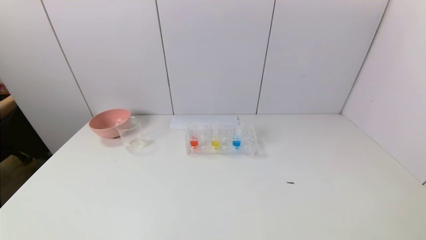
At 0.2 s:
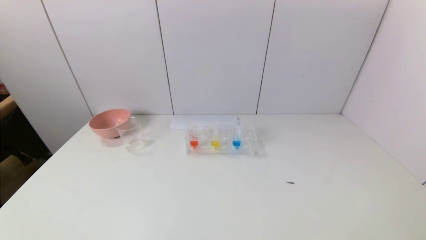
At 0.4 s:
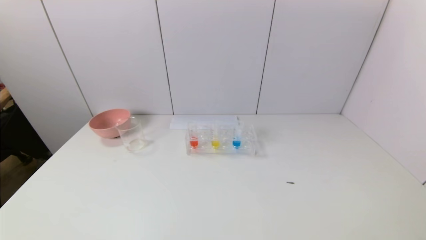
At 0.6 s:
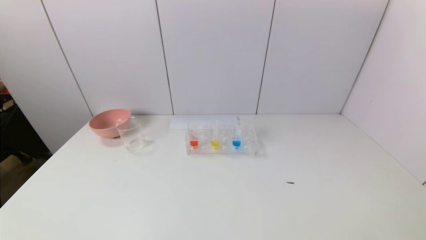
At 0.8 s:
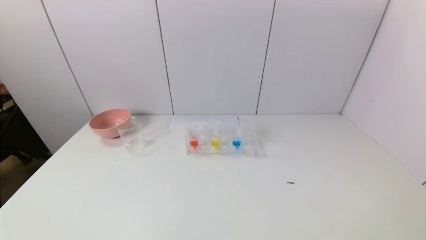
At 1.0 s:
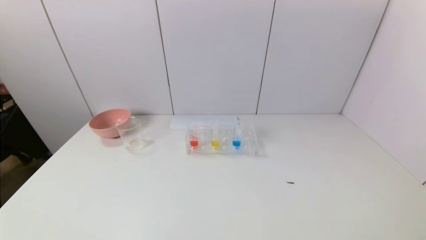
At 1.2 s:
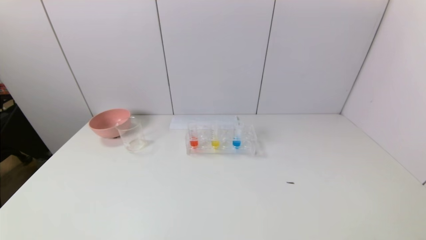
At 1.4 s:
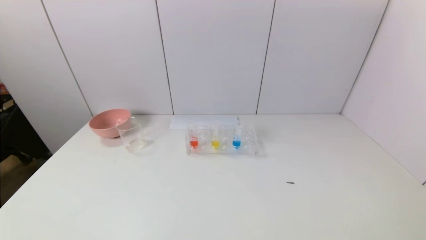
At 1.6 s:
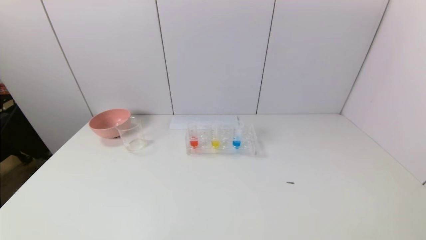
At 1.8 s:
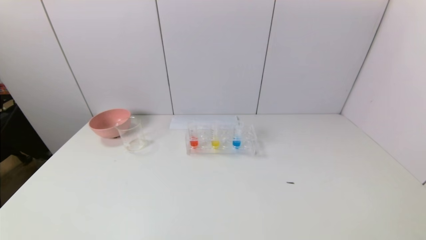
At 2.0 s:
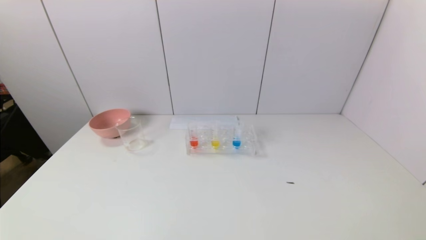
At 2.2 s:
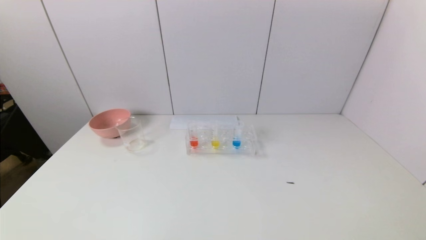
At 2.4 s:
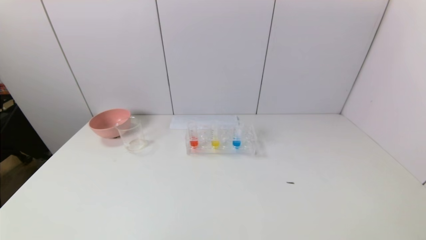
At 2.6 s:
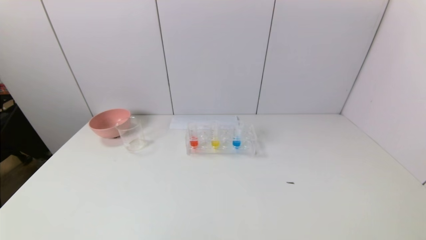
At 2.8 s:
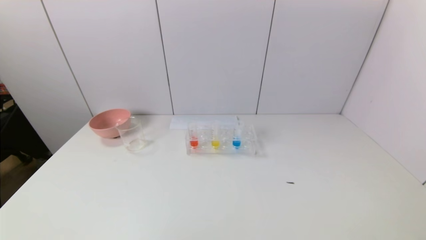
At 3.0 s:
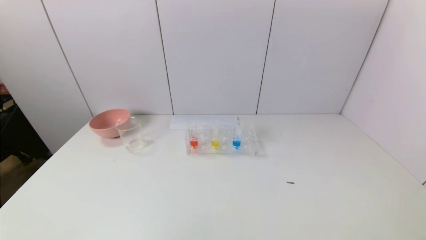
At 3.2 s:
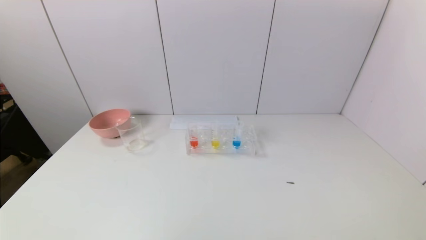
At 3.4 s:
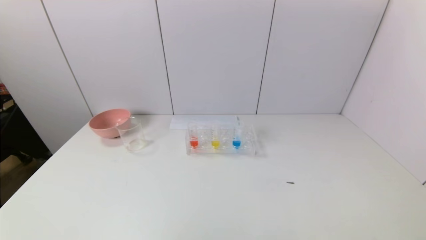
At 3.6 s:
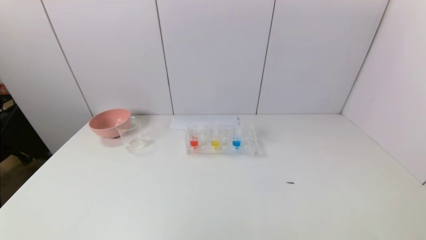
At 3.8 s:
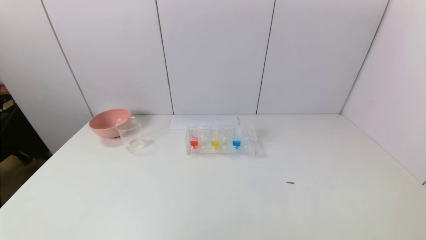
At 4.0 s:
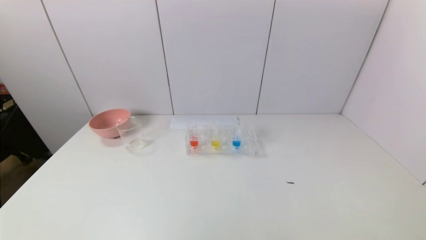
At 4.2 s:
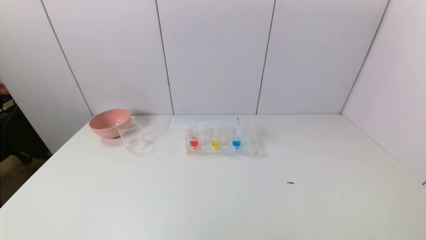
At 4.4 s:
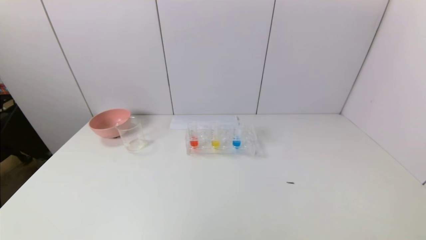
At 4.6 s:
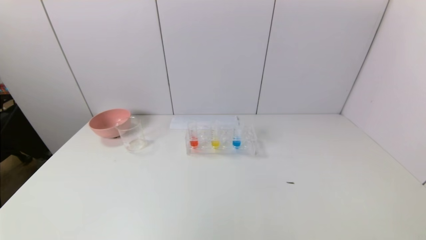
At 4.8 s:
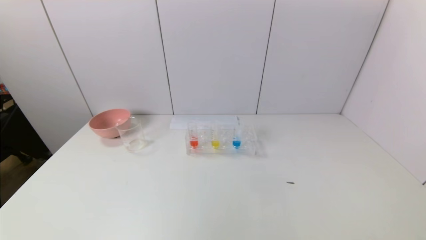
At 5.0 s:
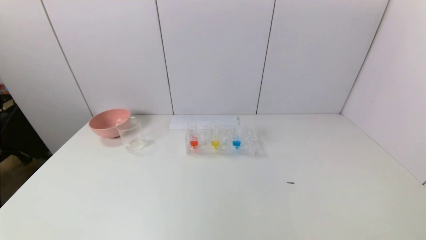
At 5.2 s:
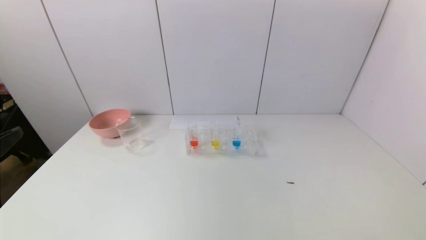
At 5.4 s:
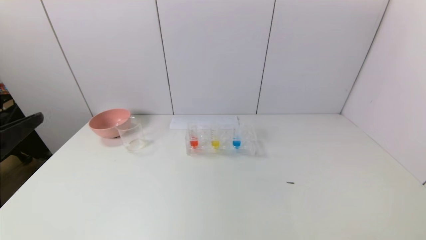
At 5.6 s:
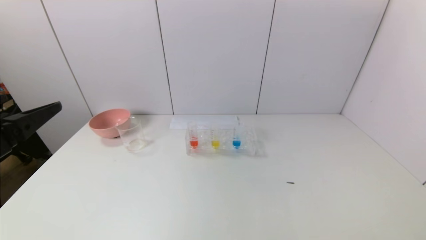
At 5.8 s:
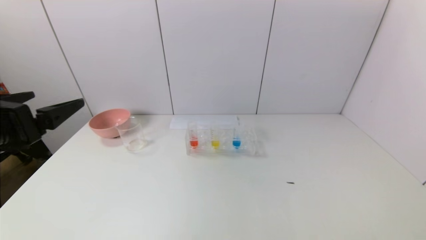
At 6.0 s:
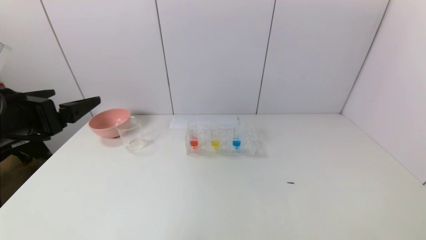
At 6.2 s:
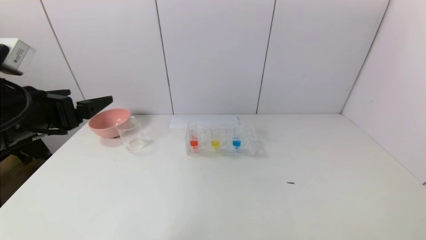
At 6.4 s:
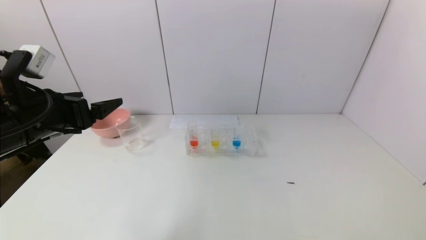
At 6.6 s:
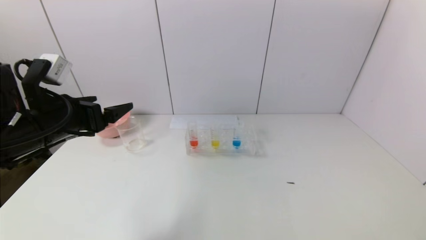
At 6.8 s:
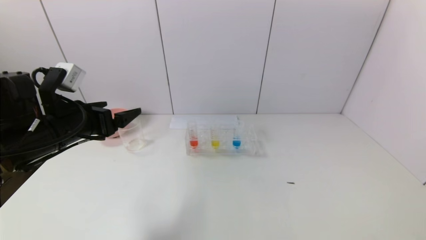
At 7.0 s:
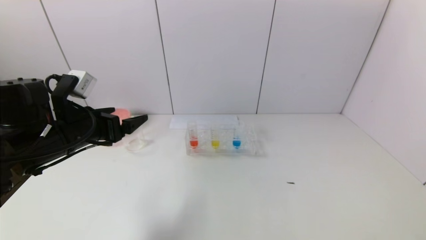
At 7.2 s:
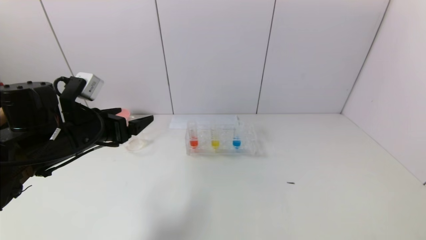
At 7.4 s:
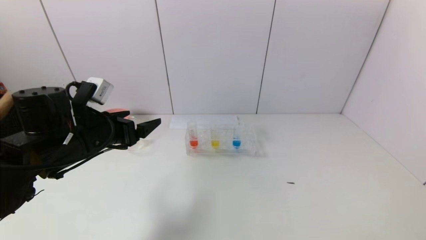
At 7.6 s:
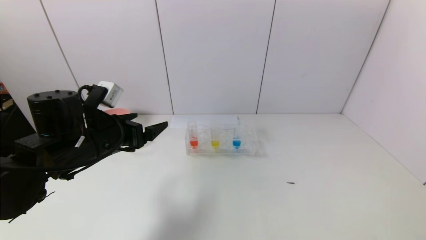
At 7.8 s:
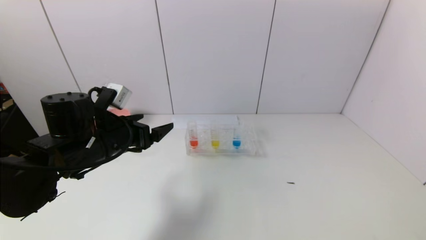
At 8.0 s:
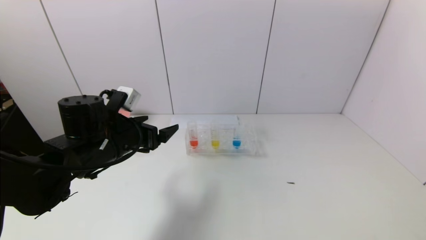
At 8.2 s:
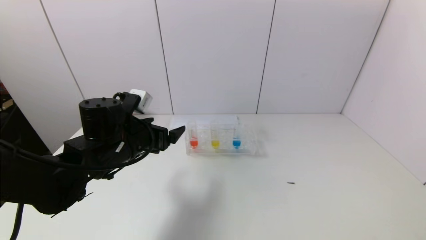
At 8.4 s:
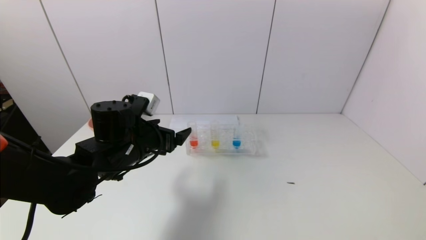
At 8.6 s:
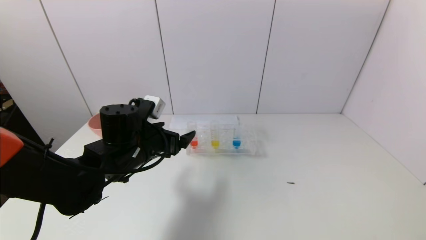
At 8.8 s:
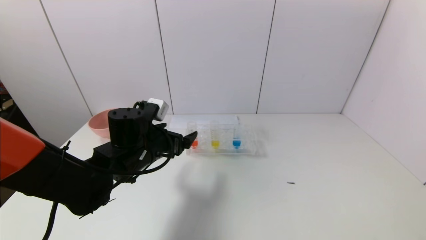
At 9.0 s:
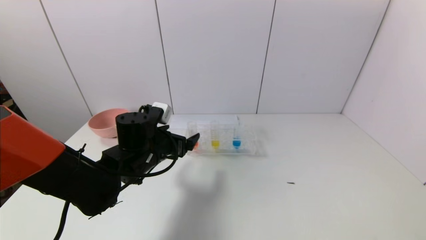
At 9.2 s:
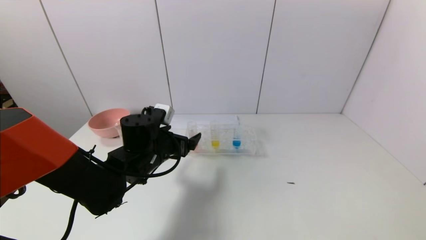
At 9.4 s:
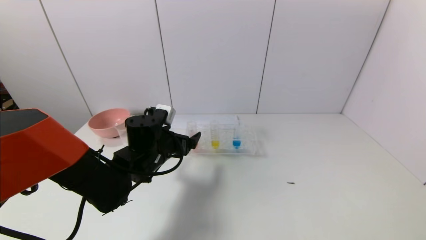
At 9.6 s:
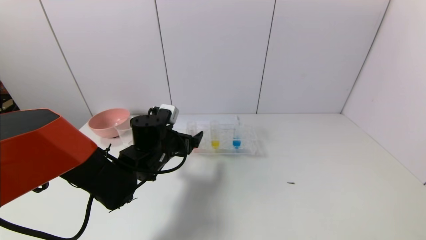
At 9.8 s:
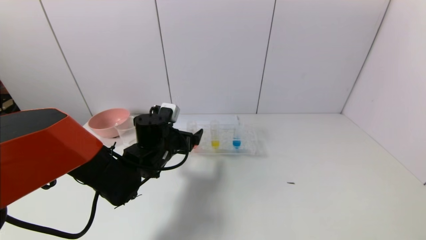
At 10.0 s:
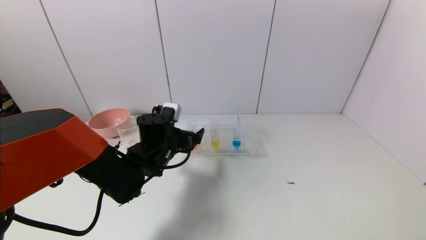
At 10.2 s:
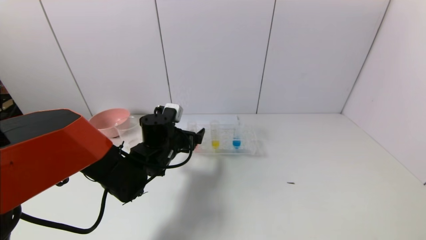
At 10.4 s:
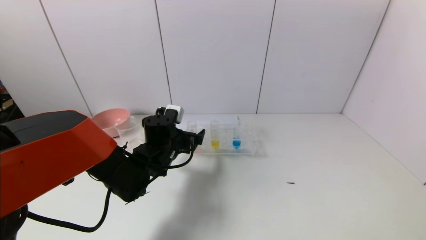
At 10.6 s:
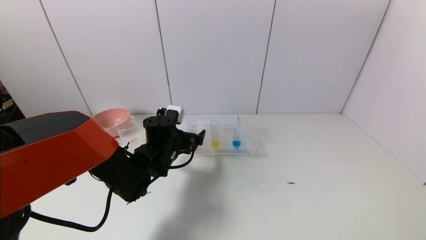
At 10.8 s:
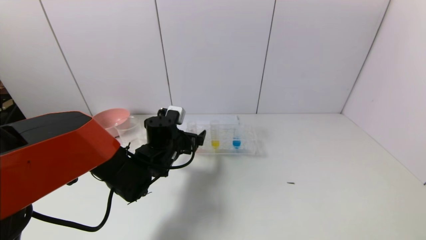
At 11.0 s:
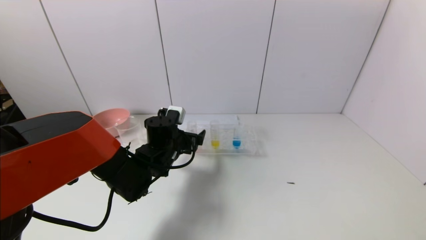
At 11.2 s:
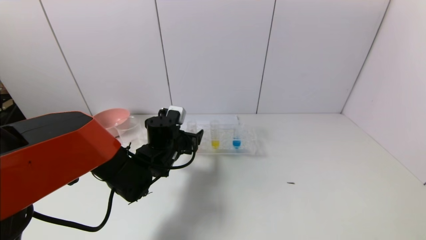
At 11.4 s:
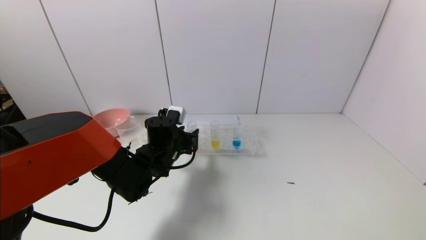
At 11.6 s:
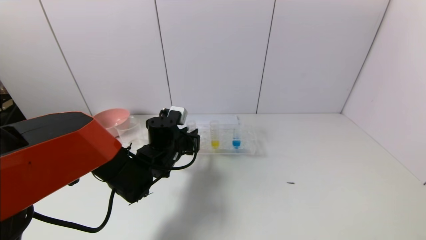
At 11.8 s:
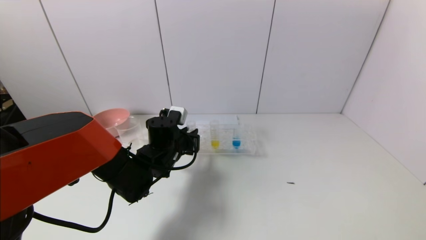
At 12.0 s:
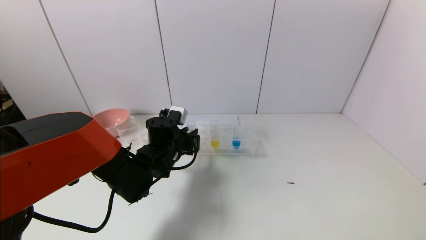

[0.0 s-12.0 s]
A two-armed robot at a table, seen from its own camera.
Task of the whole recording: pick up the test tube with yellow pigment and the test tube with red pigment by grippers and pour them into the beaker.
Step, 0.0 to 11.8 s: Grasp the red reagent with the left gripper.
0.0 to 1.6 s: Both grippers stay about where they are.
4.4 to 6.0 s: The left gripper is displaced forward by approximately 20 cm.
6.0 to 7.6 s: The left gripper travels downward, forward and to the right by about 15 cm.
7.6 to 9.0 s: The left gripper is displaced to the right and downward by approximately 10 cm.
9.0 to 10.4 s: The left gripper changes place by some 5 cm.
10.4 to 12.0 s: The left gripper closes its fingers.

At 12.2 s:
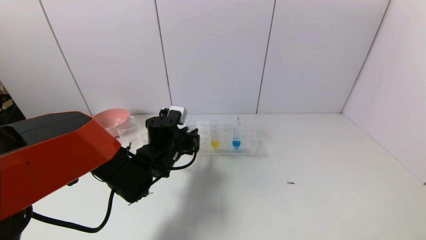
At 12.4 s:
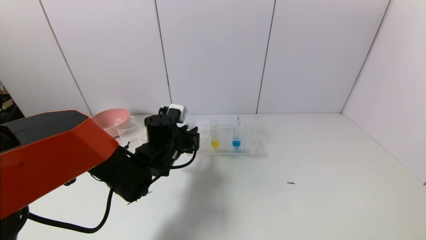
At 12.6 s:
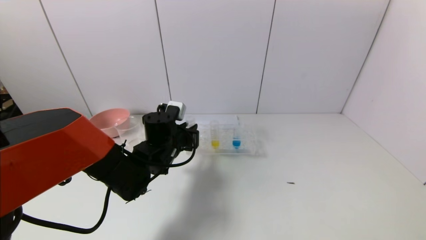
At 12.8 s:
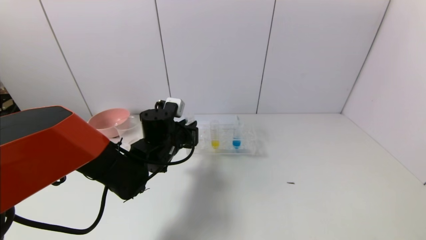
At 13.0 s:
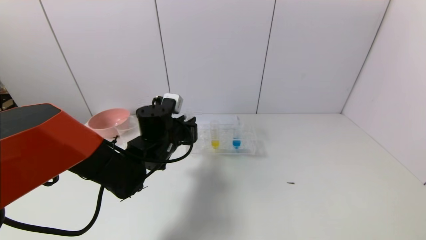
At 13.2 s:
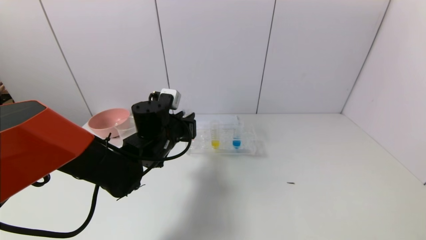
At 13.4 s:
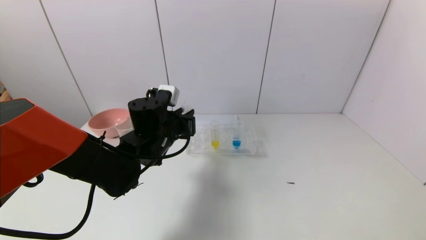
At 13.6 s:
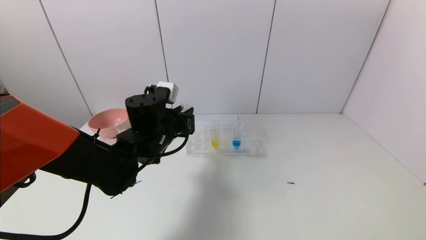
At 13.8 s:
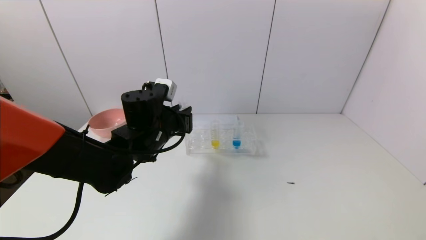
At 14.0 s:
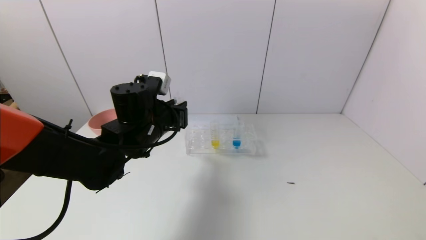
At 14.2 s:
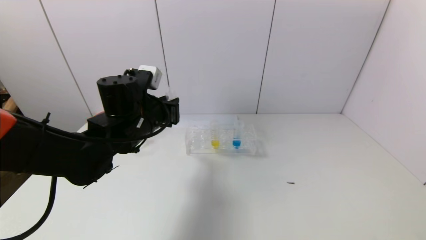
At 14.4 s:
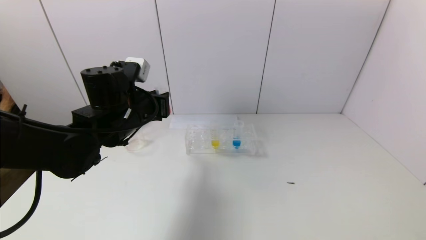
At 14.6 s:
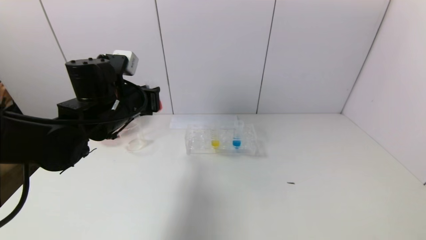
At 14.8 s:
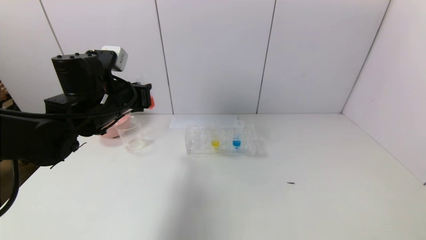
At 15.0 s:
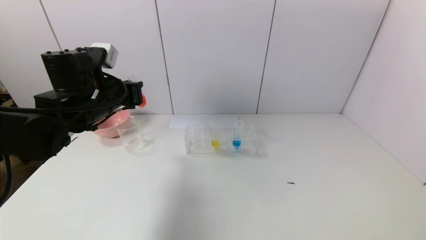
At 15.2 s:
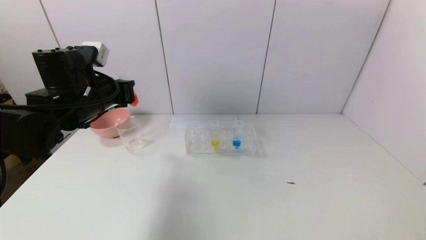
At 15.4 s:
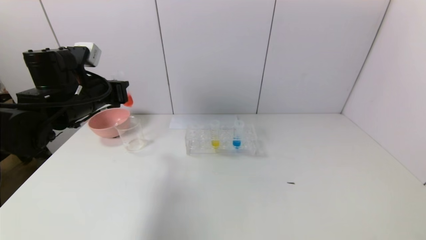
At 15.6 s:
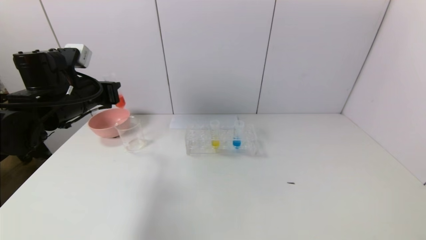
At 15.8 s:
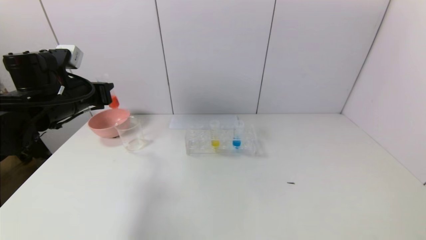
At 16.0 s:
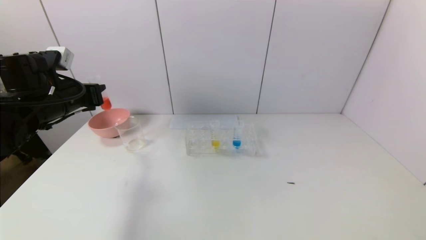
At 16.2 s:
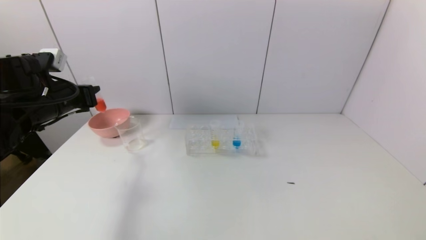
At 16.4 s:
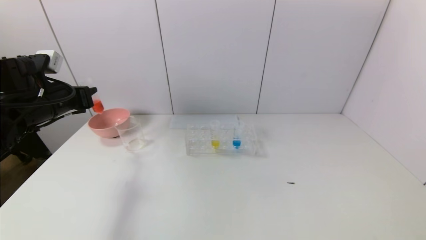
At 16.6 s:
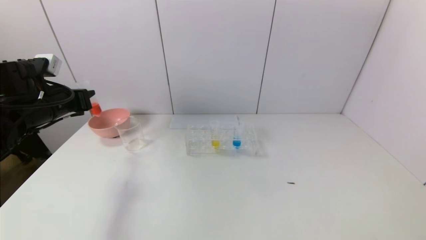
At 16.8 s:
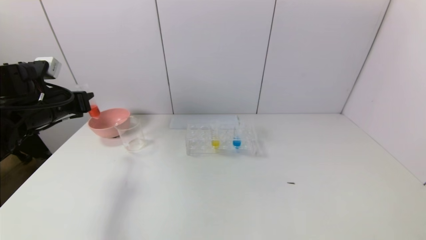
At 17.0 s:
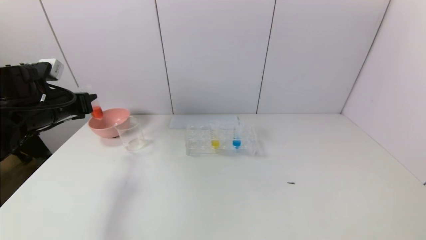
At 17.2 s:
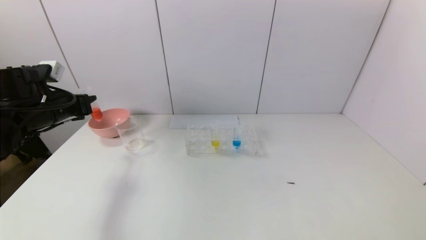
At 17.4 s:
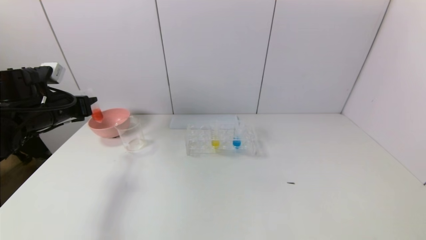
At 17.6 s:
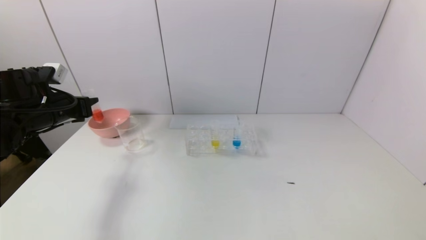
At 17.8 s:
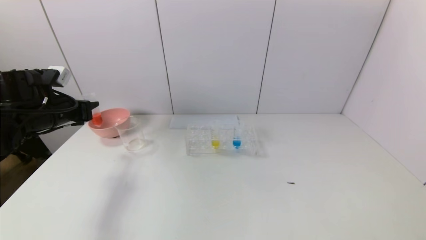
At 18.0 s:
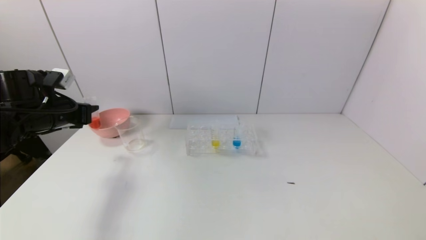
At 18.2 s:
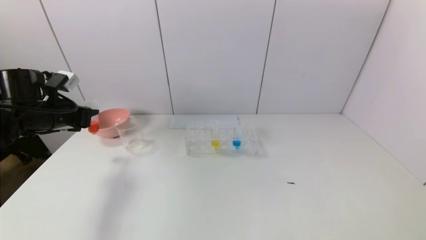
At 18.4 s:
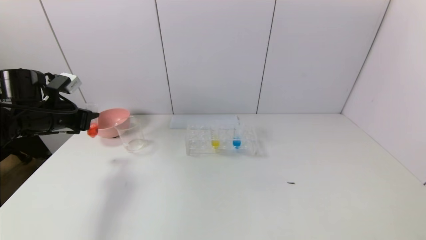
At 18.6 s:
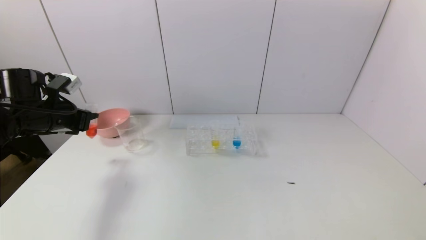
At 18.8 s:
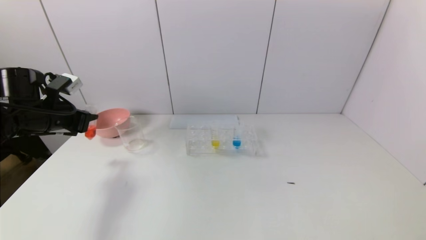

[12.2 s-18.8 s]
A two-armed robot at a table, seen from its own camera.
Task of the whole recording: pick up the test tube with yellow pigment and the test tube with red pigment by grippers and pour them into the beaker.
12.2 to 13.8 s: The left gripper moves upward, roughly 10 cm.
13.8 to 15.4 s: The left gripper shifts about 15 cm to the left and upward.
15.4 to 17.2 s: The left gripper travels to the left by some 10 cm.
